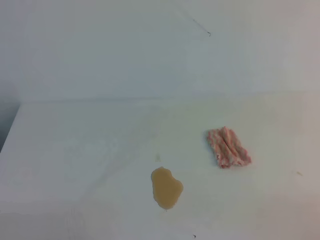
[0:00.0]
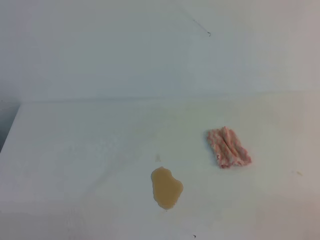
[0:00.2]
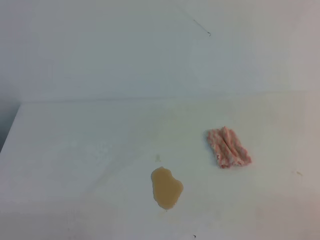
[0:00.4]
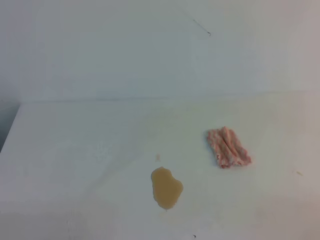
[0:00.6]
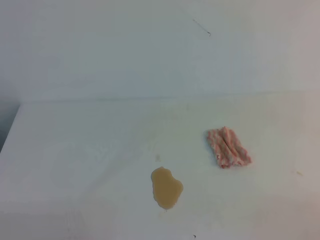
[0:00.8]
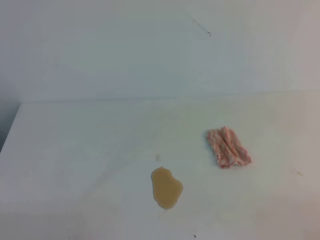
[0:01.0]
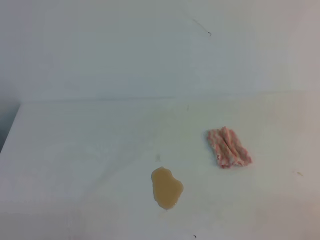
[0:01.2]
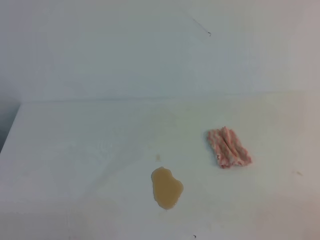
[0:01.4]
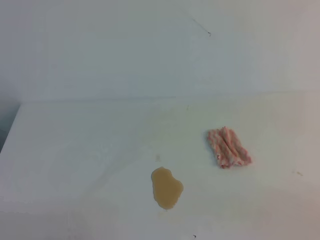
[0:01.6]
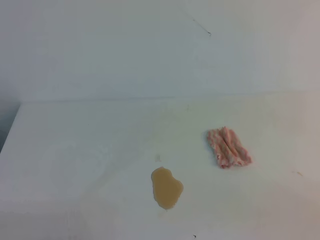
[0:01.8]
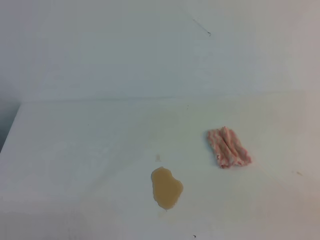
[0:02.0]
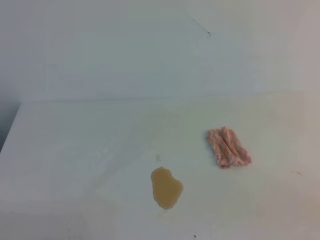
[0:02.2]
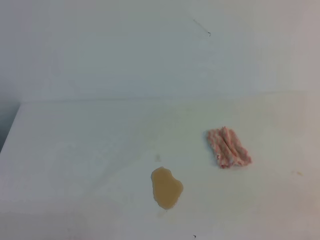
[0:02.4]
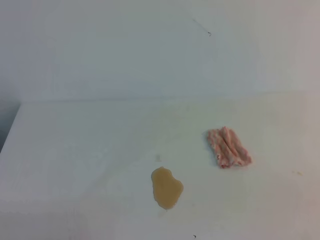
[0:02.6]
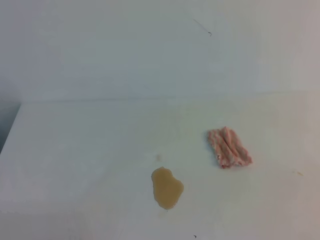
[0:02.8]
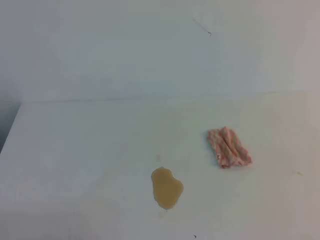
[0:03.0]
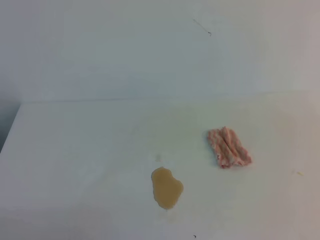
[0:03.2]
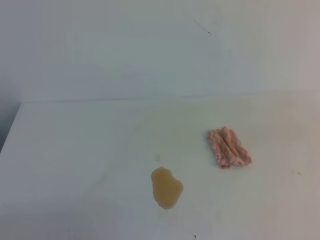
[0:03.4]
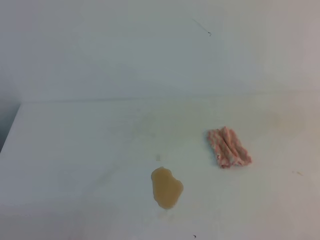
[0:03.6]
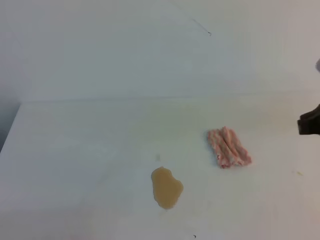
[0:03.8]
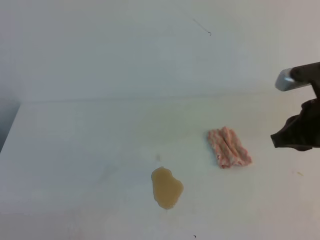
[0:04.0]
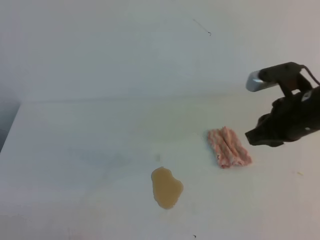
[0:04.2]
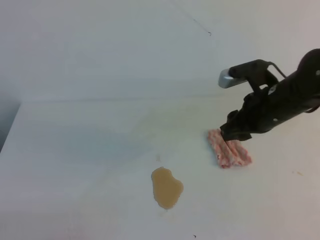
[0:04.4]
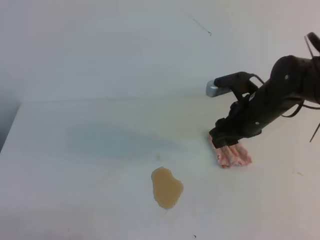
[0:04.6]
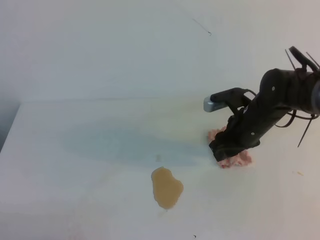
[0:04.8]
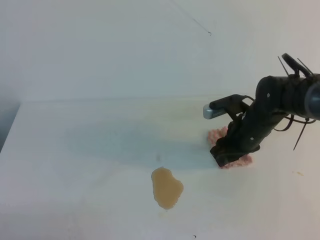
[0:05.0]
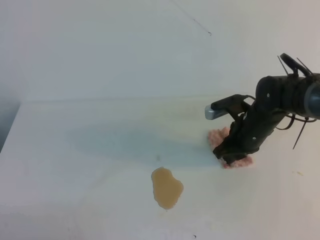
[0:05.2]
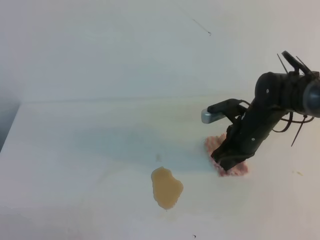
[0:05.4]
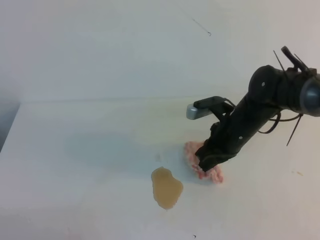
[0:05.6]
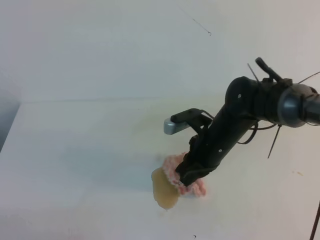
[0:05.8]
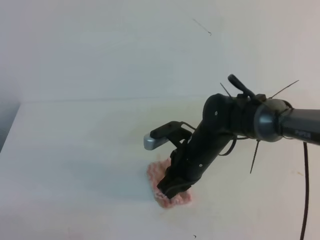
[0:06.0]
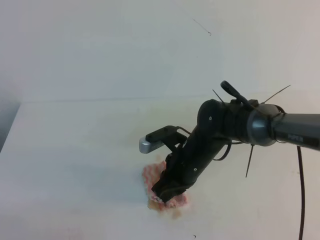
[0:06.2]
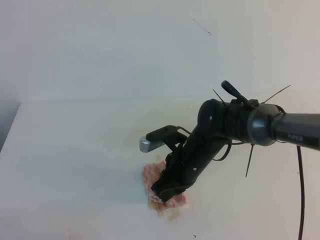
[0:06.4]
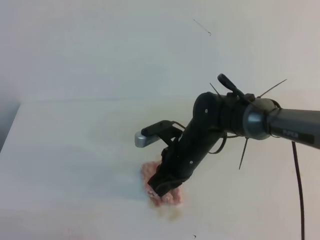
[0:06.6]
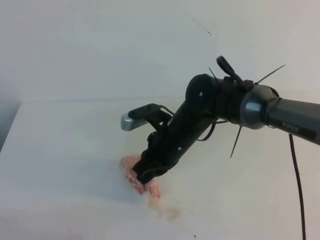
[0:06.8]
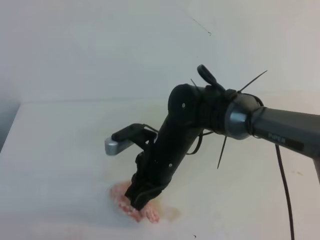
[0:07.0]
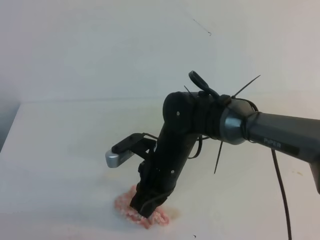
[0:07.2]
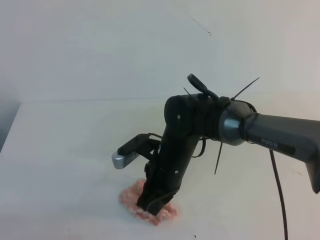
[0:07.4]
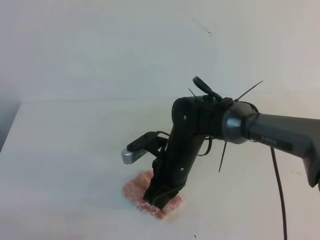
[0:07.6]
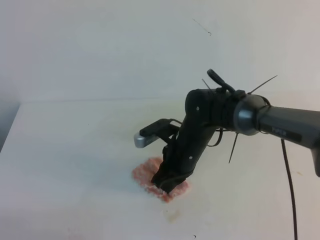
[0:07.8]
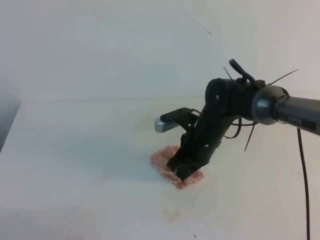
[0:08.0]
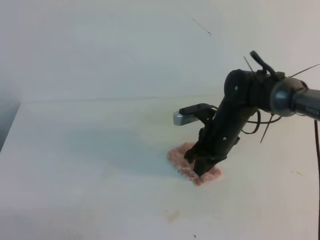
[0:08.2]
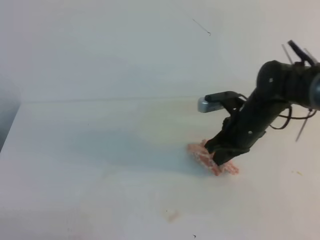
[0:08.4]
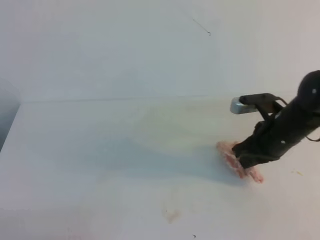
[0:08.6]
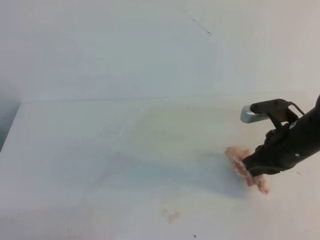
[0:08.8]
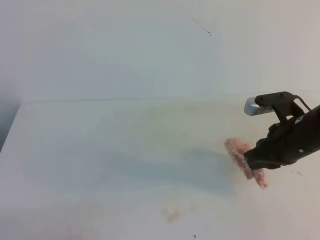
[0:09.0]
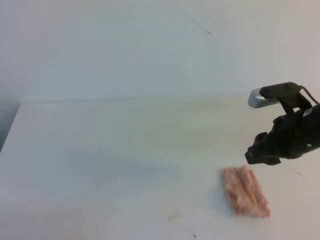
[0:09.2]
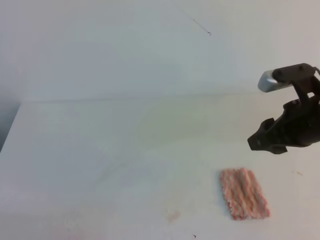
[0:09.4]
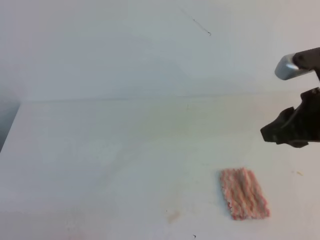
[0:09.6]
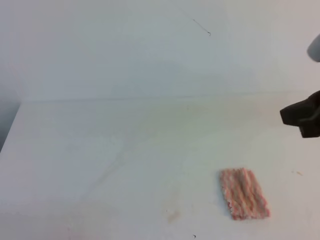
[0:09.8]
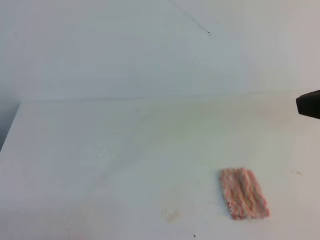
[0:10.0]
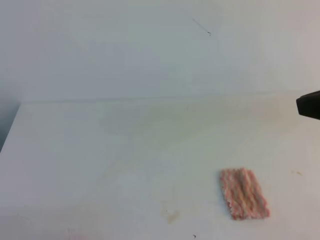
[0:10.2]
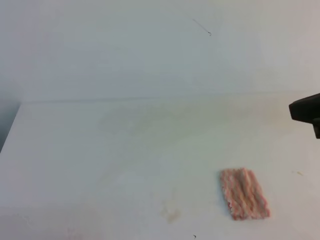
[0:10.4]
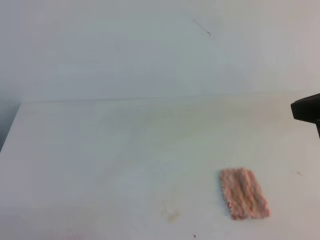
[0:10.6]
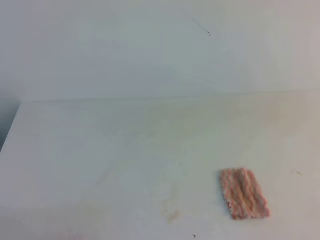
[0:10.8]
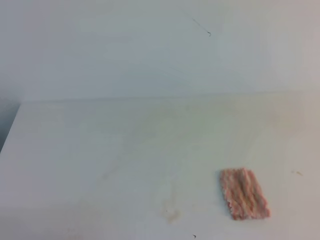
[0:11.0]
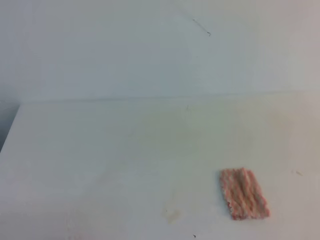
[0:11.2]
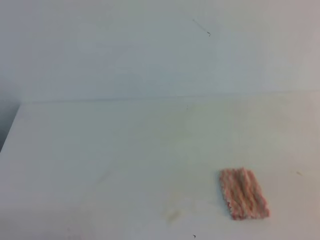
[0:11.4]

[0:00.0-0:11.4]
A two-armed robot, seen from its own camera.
0:00.0 to 0:01.4: Both grippers stay put.
0:02.8 to 0:04.2: The right gripper goes roughly 30 cm forward and to the left, and opens its fingers.
0:04.2 to 0:05.6: The right gripper goes roughly 15 cm downward, to the left and forward, and closes its fingers.
0:05.6 to 0:07.2: The right gripper heads to the left and backward, covering approximately 15 cm.
0:07.2 to 0:08.6: The right gripper travels to the right by approximately 20 cm.
0:08.6 to 0:10.0: The right gripper goes some 25 cm upward and backward, and opens, then closes again.
0:10.0 to 0:11.4: The right gripper travels backward, to the right and downward by about 20 cm.

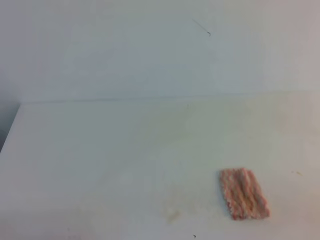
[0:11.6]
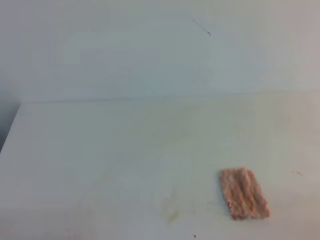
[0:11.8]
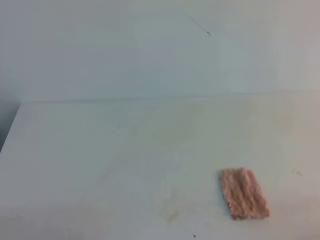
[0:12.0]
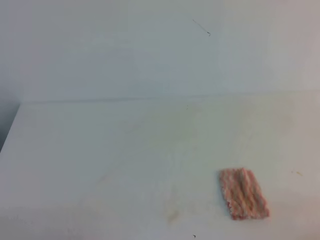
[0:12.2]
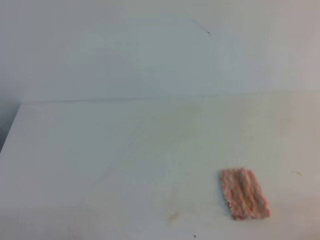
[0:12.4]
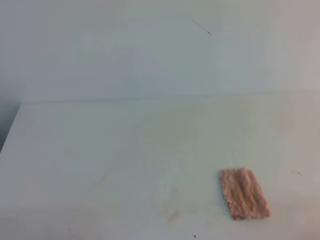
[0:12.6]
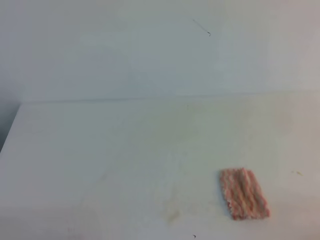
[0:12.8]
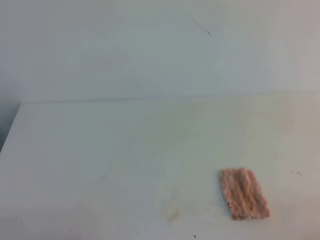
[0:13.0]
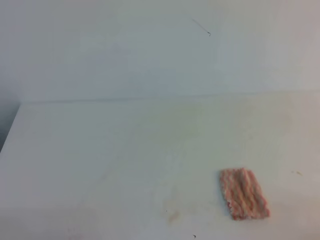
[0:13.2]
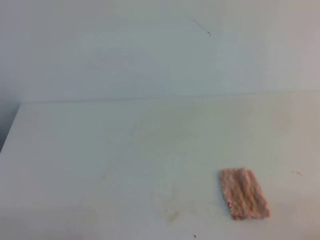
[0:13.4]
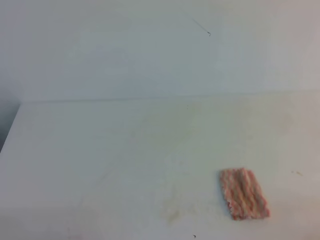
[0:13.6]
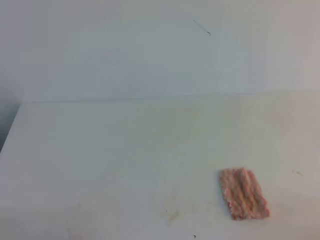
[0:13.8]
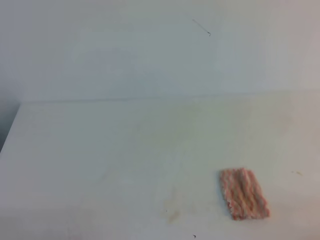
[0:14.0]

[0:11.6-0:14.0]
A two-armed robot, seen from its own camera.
0:12.8 to 0:14.0: Neither gripper changes place.
